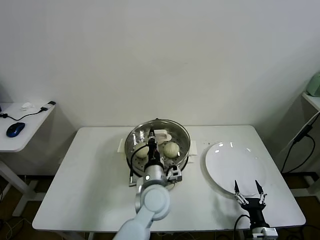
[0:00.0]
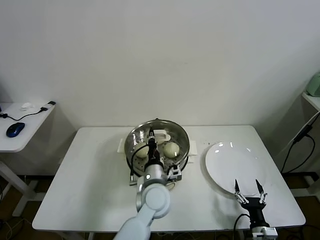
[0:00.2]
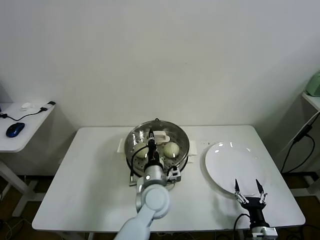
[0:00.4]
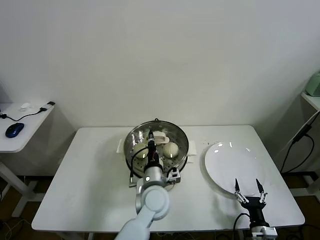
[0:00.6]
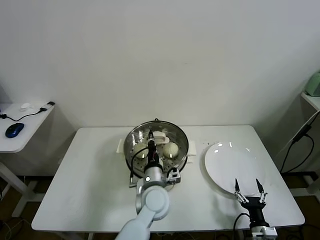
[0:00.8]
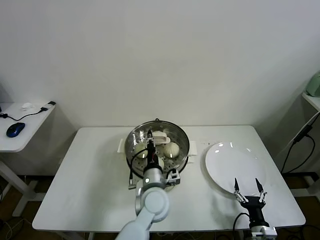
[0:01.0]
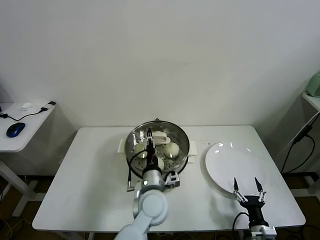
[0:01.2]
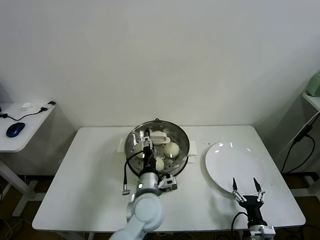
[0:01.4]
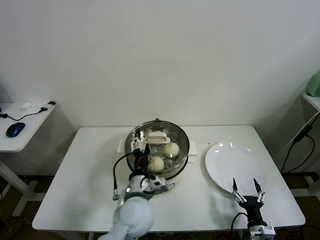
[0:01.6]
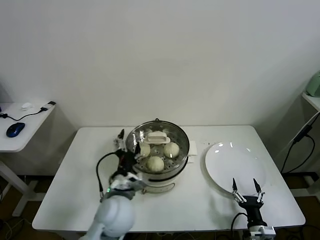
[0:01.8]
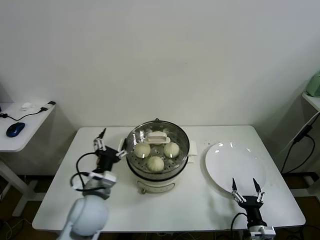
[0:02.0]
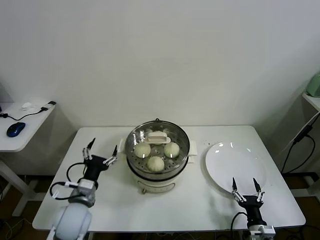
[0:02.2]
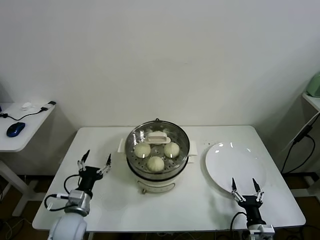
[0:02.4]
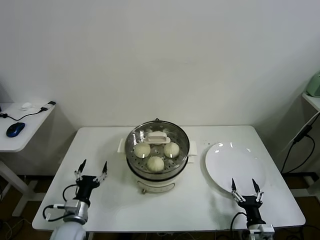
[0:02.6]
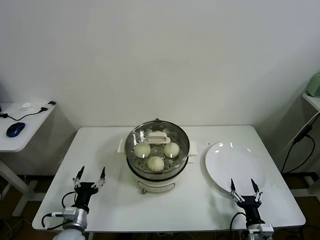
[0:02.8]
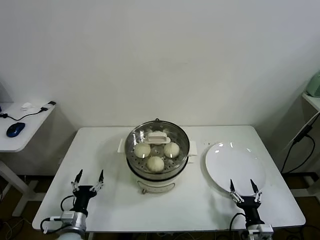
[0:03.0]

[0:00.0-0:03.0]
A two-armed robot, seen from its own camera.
Task of the whole recording: take steamed baozi put them in steamer.
0:00.0 to 0:01.6: The left gripper changes place by roughly 5 cm, and opens up.
0:01.6 to 0:03.0: The left gripper shifts approximately 30 cm to the left and downward.

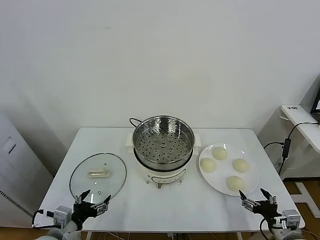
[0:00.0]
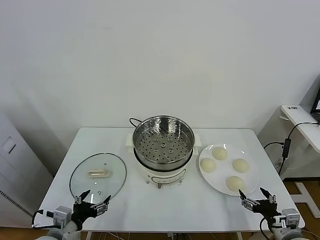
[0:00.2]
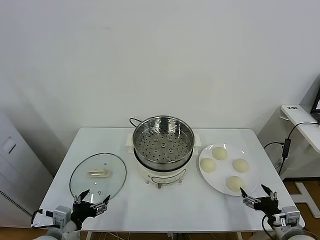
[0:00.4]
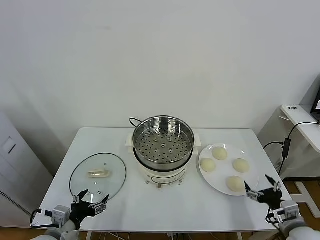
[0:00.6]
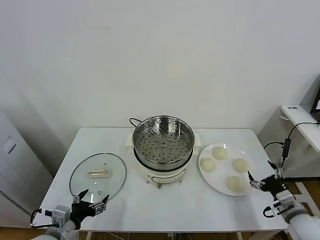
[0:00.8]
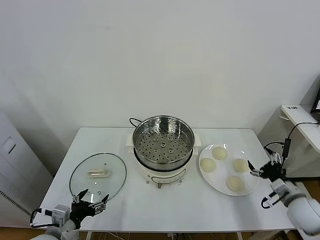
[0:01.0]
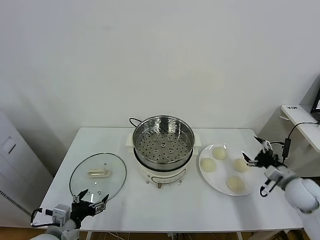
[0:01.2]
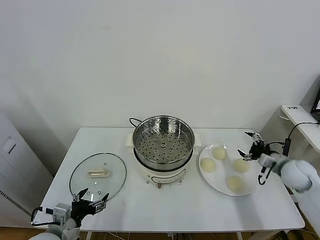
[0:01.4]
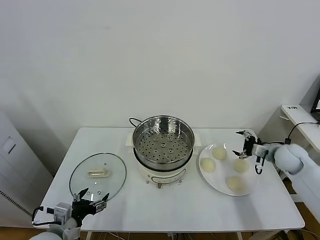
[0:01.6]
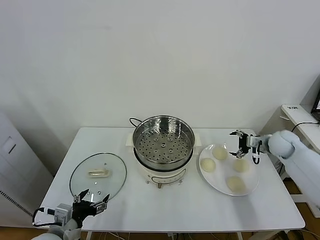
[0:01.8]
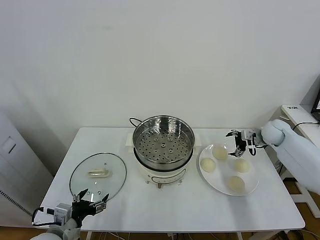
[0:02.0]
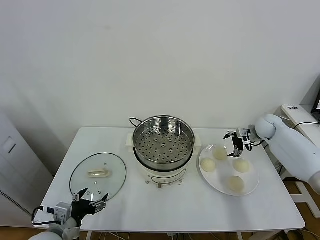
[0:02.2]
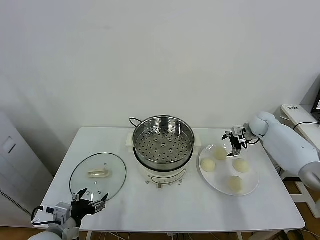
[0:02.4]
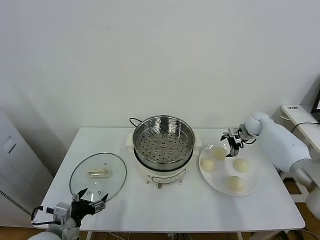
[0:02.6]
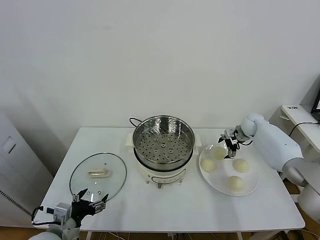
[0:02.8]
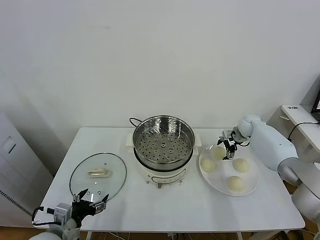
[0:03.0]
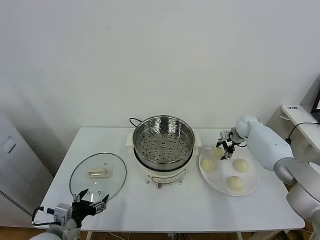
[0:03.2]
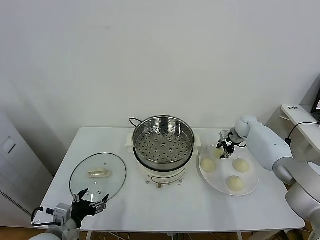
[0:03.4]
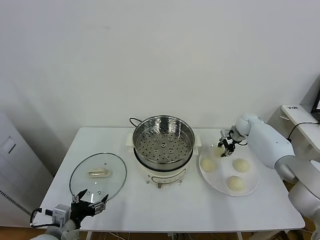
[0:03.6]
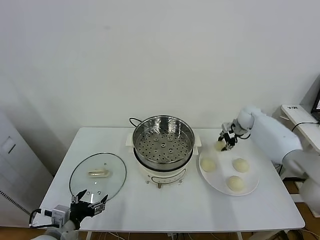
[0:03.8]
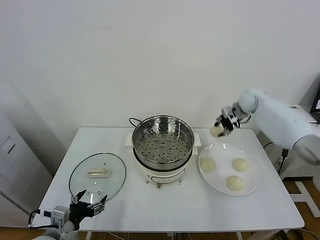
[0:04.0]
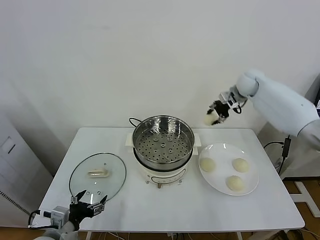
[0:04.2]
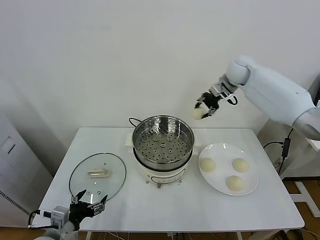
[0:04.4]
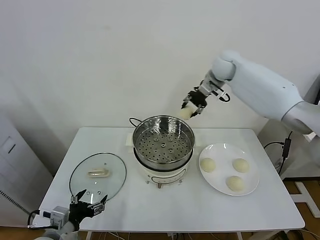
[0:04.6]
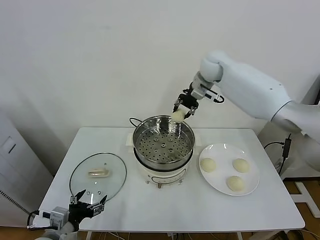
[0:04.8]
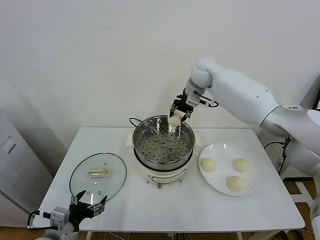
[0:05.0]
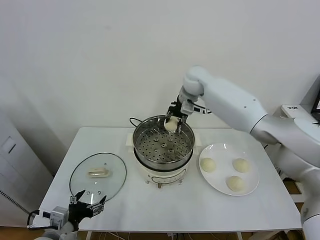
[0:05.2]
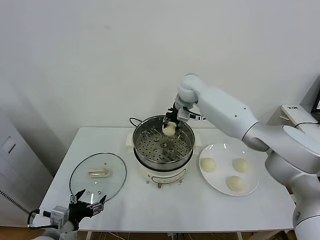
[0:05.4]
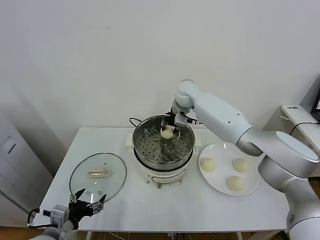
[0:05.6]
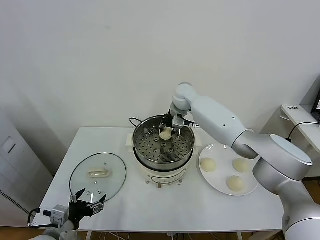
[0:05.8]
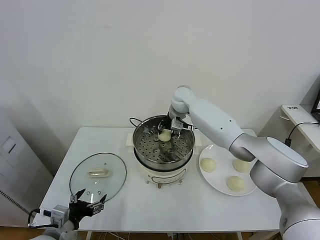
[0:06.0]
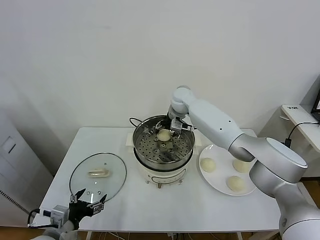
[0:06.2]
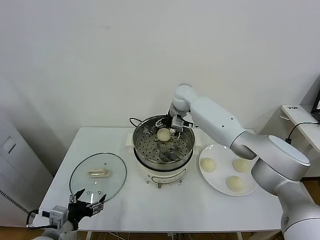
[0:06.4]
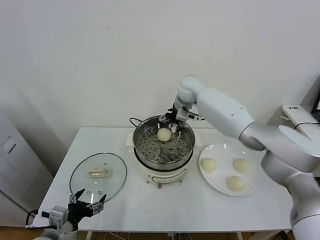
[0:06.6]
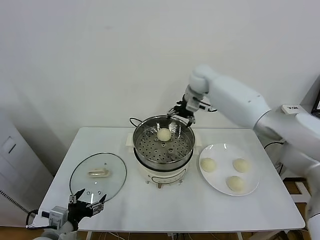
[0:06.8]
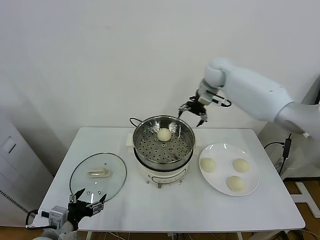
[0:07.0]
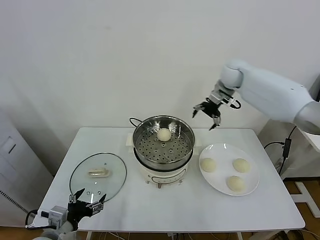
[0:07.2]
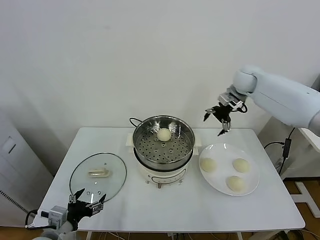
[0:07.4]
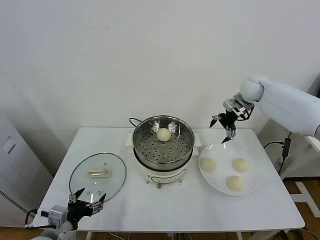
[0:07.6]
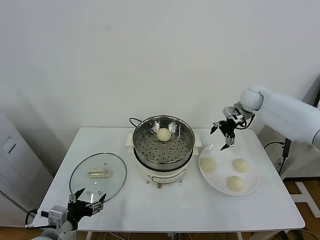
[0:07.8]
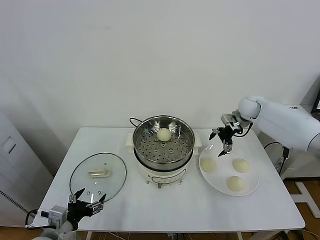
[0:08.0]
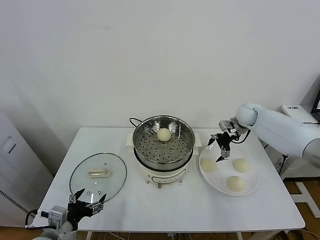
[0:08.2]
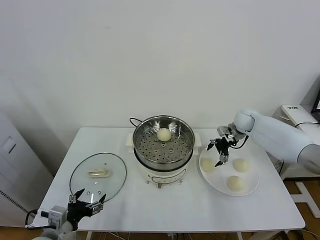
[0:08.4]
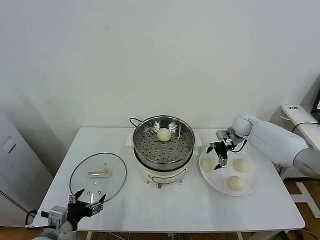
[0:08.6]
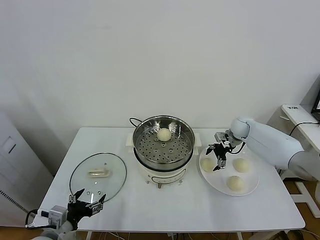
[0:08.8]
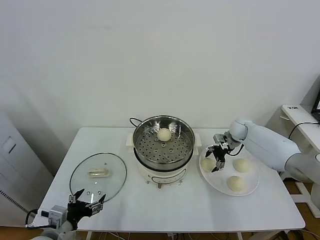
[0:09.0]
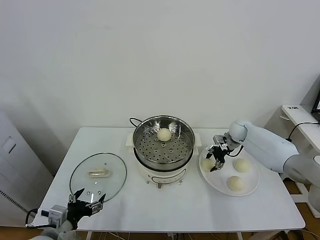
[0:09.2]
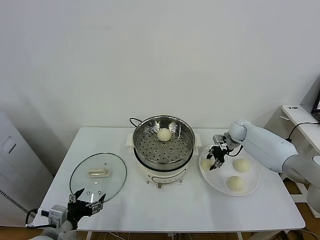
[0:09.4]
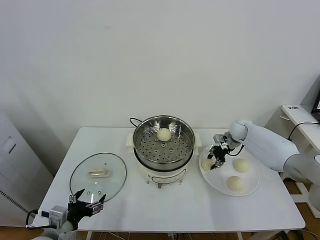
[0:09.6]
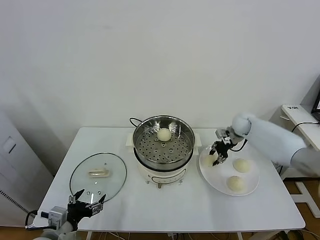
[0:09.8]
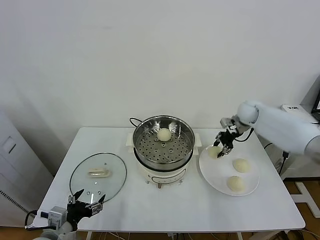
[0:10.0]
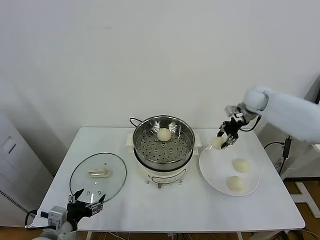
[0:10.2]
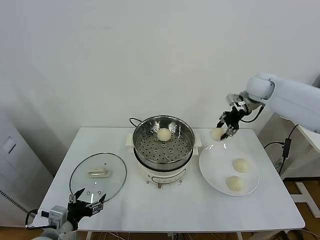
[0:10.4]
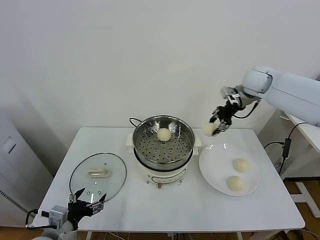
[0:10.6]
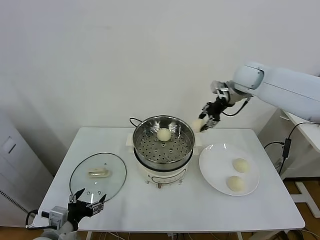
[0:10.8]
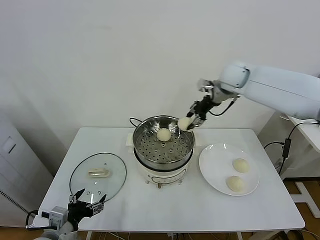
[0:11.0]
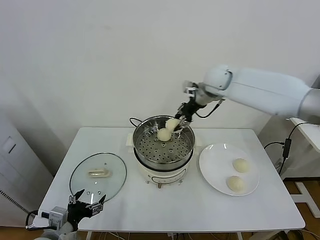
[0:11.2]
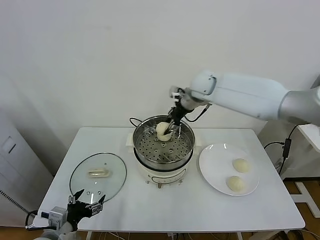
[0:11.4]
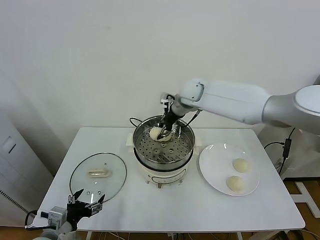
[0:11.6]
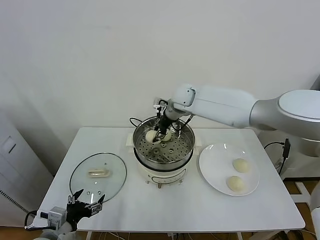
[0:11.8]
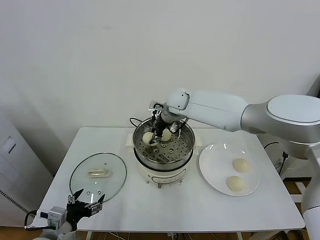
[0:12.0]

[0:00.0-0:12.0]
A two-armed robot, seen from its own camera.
Task of the whole recording: take steamed baozi put them in steamer.
Step, 0:00.0 to 0:03.2: Grasp the baozi in the plate with right gripper.
Step, 0:03.4 to 0:06.4: Place the baozi on the steamer with right gripper.
Step, 0:06.6 to 0:09.2: Grasp the baozi in the plate with right gripper.
0:01.6 to 0:03.0: The right gripper is displaced forward by about 15 cm.
0:03.0 to 0:04.4: The right gripper heads upward and to the left, covering about 30 cm, and closes its fingers.
0:04.4 to 0:06.0: The right gripper moves to the left and downward, some 20 cm.
0:06.0 to 0:07.6: The right gripper moves to the right, approximately 25 cm, and opens its fingers.
0:07.6 to 0:09.0: The right gripper is displaced downward by roughly 20 cm.
0:09.0 to 0:10.4: The right gripper is displaced upward by about 20 cm, and closes up.
0:10.4 to 0:12.0: The right gripper shifts approximately 25 cm to the left.

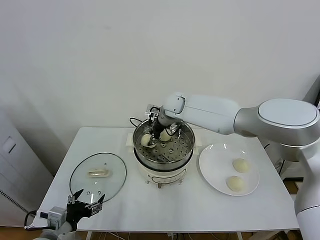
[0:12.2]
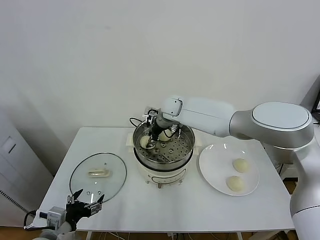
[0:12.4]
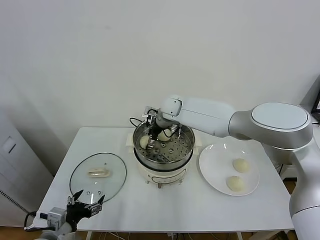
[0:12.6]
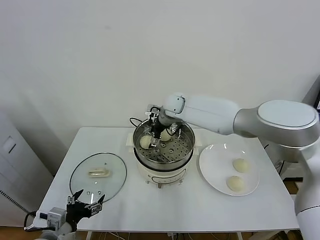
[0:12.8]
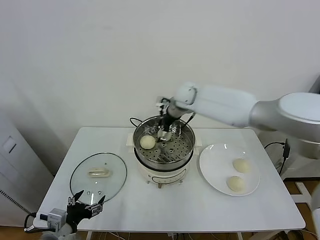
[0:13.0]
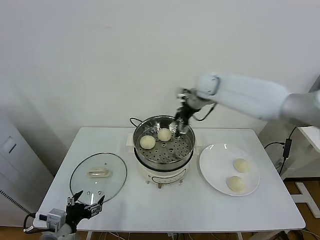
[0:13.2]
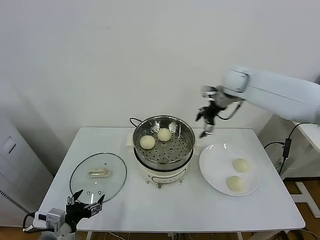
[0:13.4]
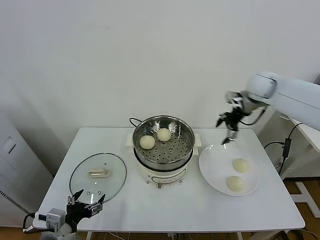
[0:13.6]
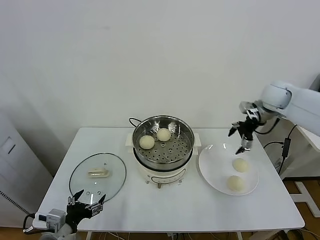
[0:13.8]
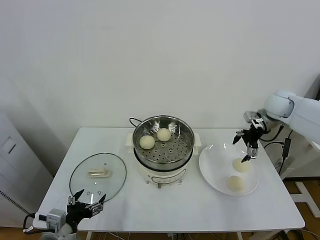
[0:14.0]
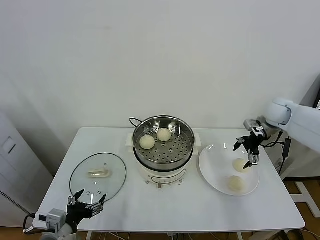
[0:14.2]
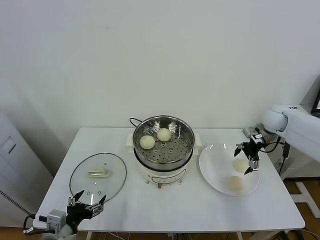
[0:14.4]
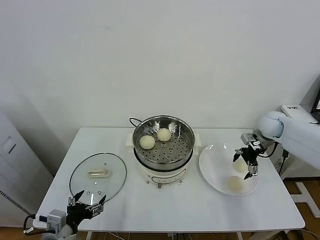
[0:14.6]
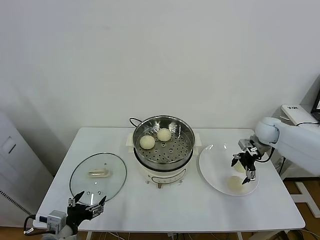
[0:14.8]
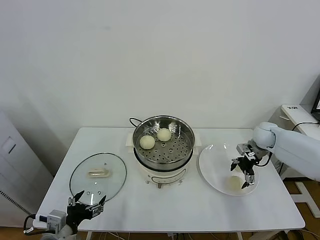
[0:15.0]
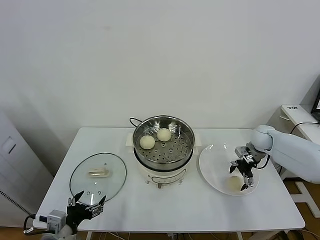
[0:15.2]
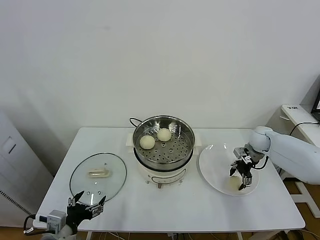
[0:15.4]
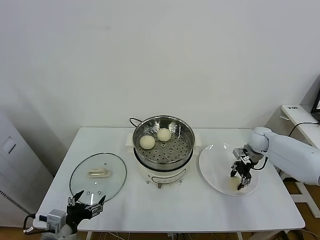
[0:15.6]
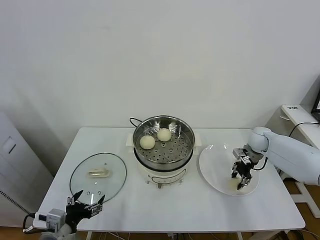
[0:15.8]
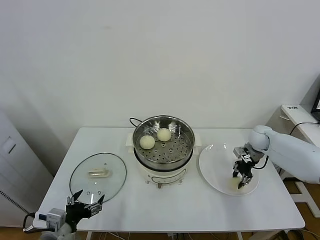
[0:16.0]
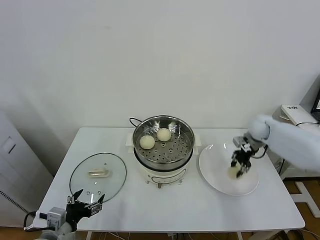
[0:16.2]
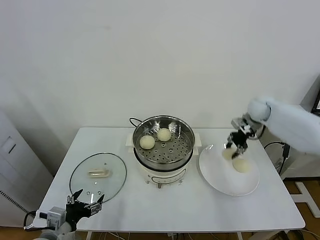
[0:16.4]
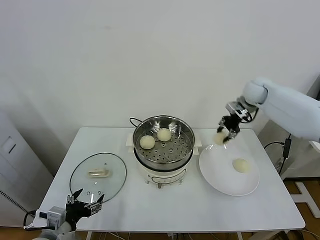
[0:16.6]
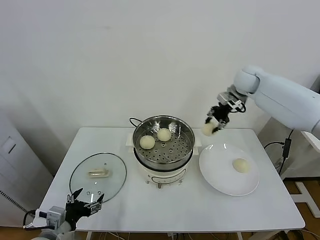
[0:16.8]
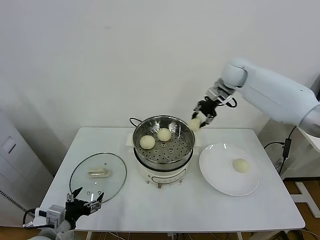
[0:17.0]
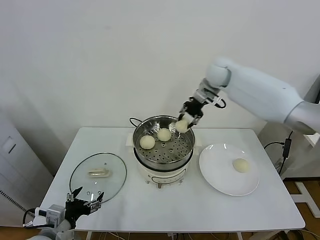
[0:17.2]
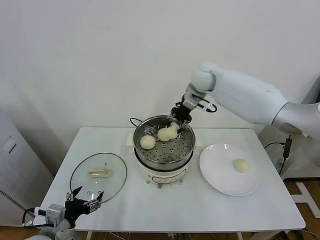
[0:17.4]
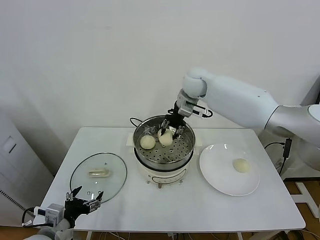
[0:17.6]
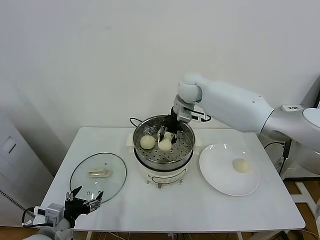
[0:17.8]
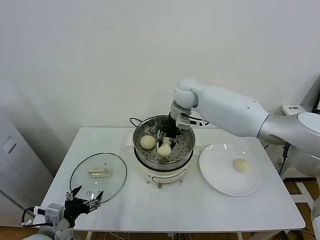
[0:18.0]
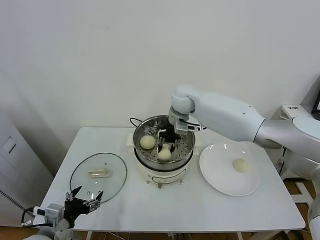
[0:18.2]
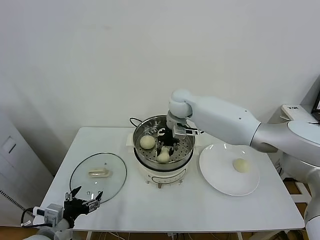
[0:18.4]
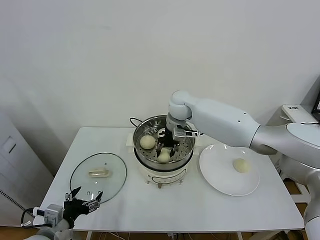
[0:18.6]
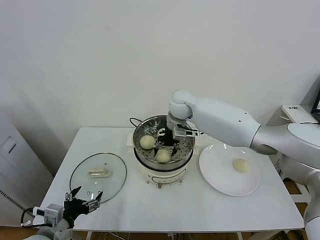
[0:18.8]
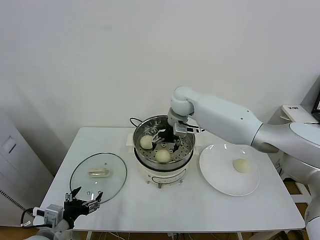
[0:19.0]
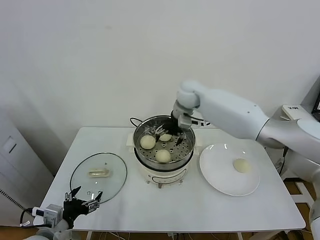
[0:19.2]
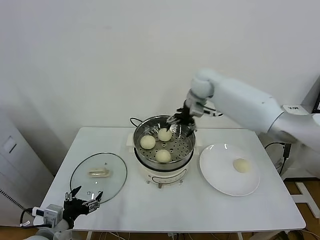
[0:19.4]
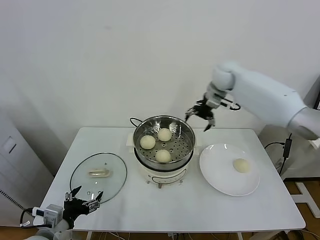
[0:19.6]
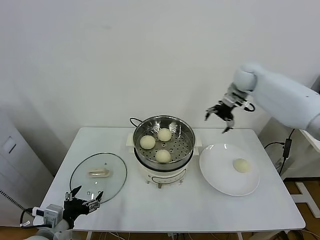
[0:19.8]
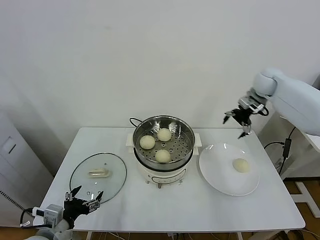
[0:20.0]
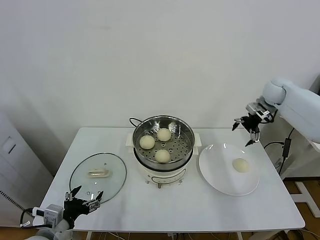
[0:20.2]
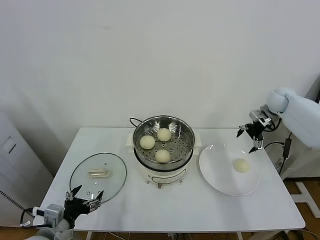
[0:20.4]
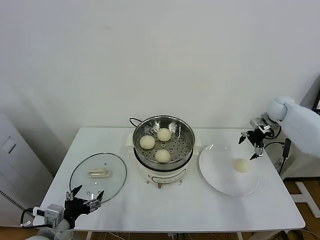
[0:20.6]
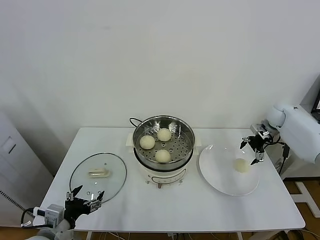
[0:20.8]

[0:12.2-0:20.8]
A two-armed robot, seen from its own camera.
Task of the whole recording: take steamed baozi put them in steamer.
Step, 0:13.0 to 0:15.6: Grasp the baozi in the plate with right gripper.
Step, 0:15.8 to 0:19.0: Place the baozi on the steamer with right gripper.
0:12.2 to 0:13.6: The right gripper moves to the right, approximately 30 cm, and opens its fingers.
0:13.6 to 0:15.0: The right gripper moves downward, some 20 cm.
0:15.0 to 0:16.6: The right gripper moves upward, forward and to the left, approximately 20 cm, and closes its fingers.
0:16.6 to 0:18.0: The right gripper heads to the left, covering approximately 25 cm.
0:18.0 to 0:19.4: The right gripper moves to the right, roughly 5 cm, and opens.
0:19.4 to 0:20.8: The right gripper moves to the right and downward, about 35 cm.
